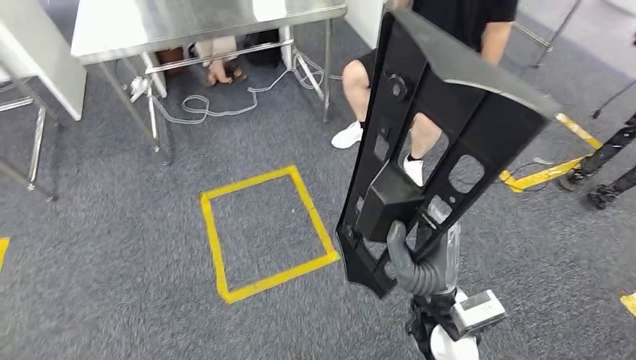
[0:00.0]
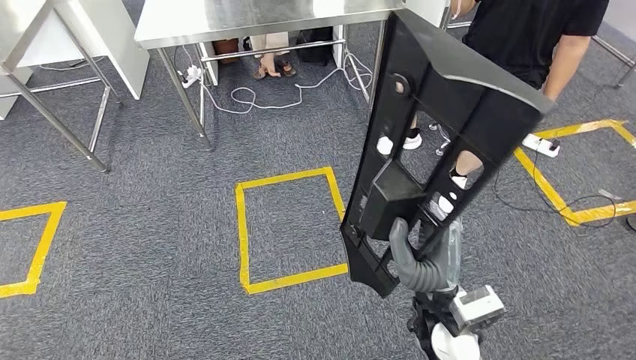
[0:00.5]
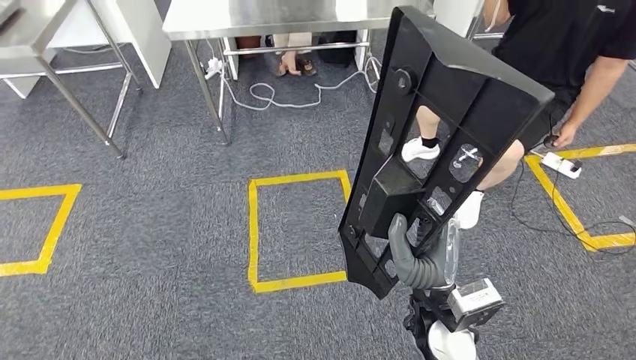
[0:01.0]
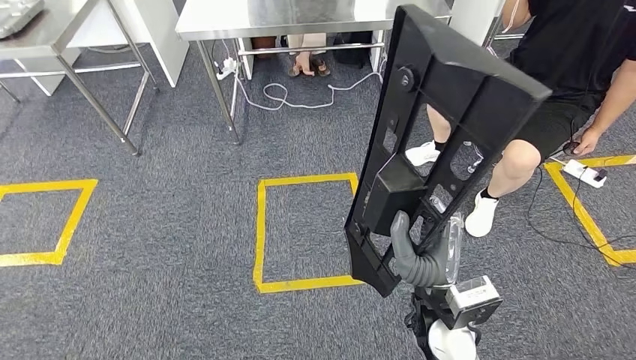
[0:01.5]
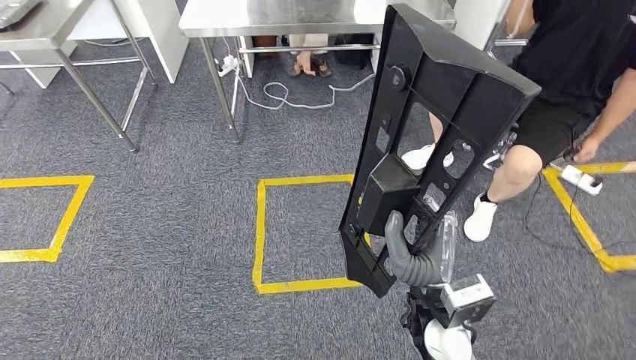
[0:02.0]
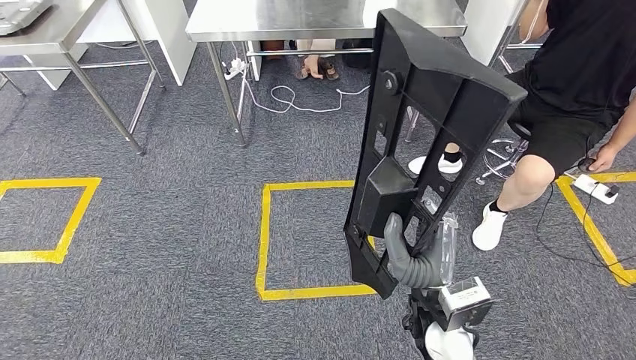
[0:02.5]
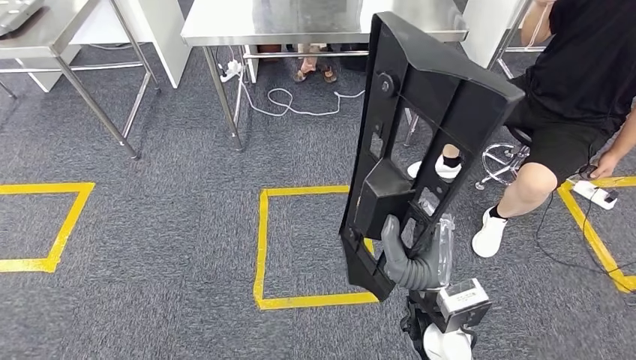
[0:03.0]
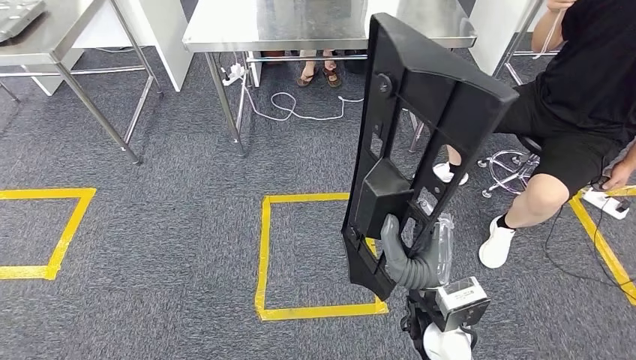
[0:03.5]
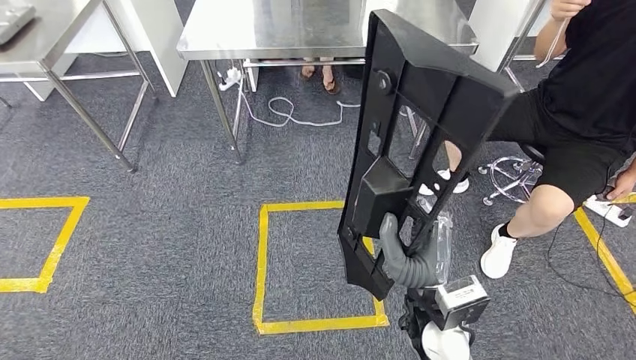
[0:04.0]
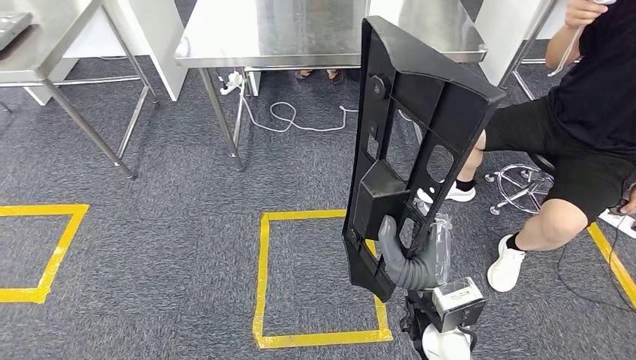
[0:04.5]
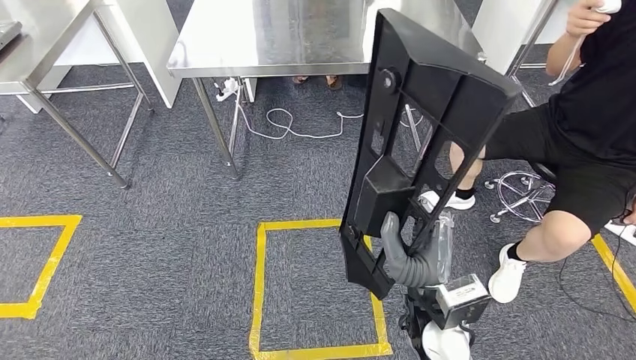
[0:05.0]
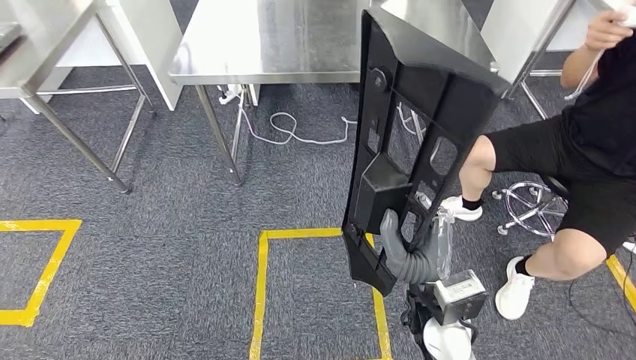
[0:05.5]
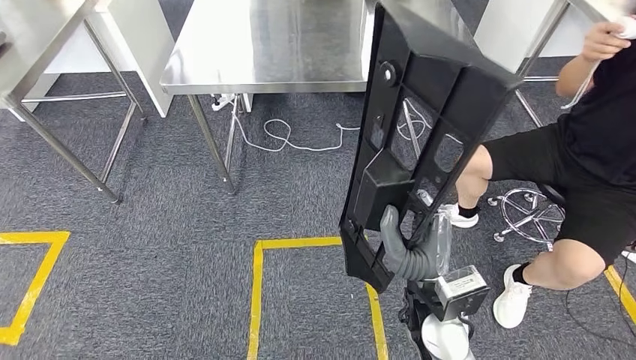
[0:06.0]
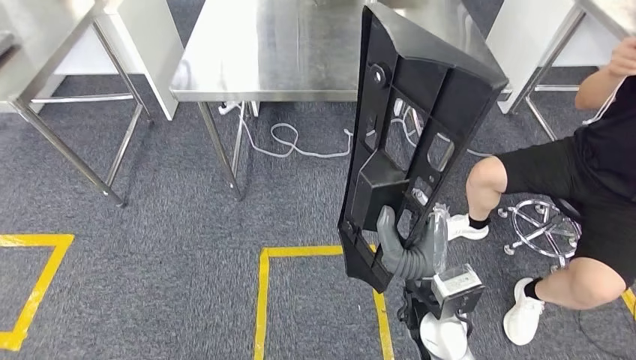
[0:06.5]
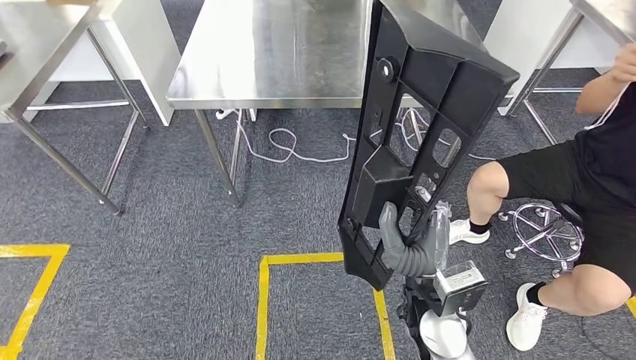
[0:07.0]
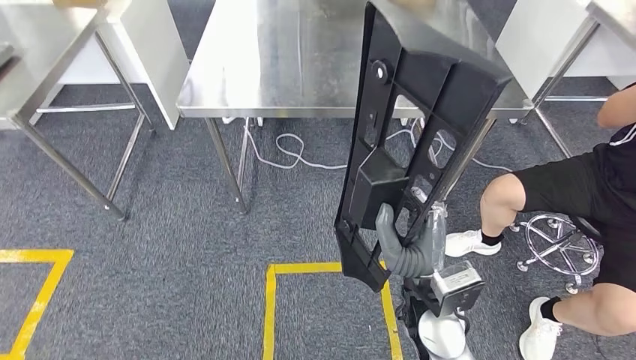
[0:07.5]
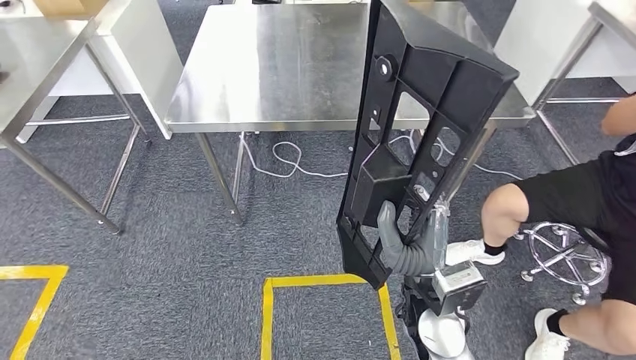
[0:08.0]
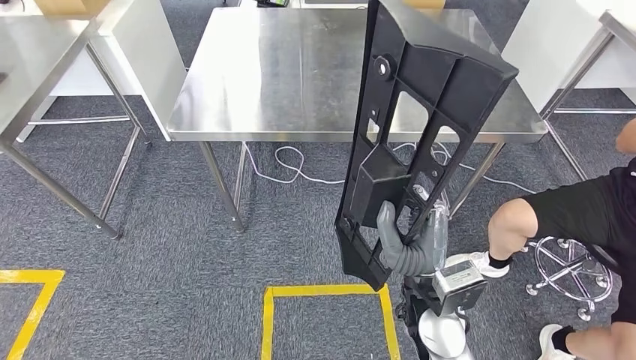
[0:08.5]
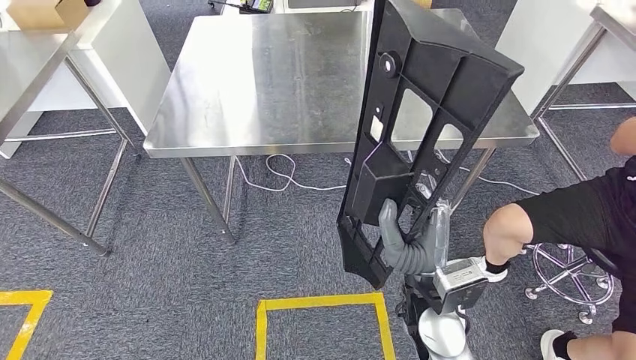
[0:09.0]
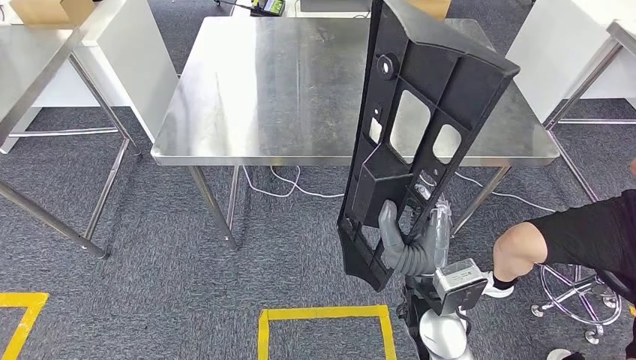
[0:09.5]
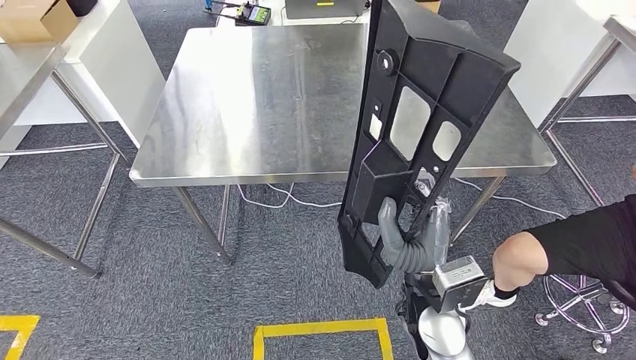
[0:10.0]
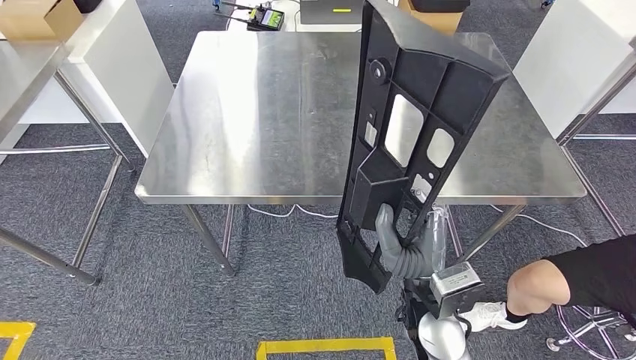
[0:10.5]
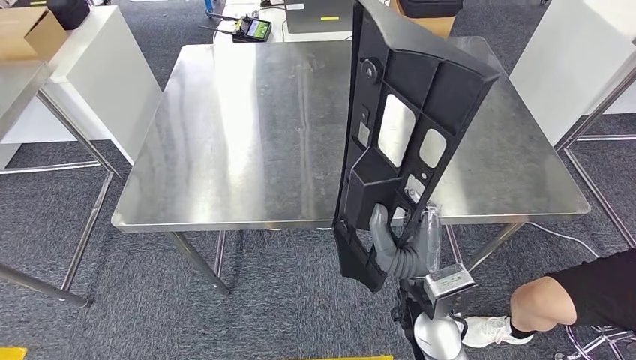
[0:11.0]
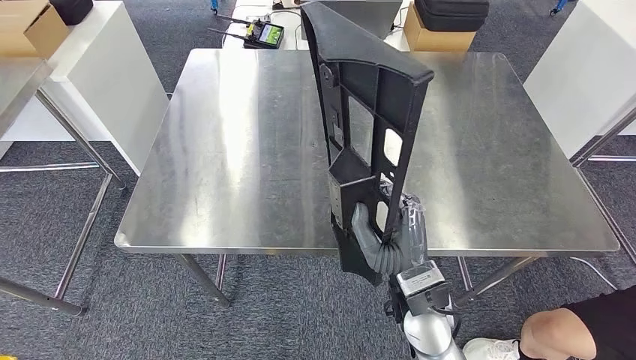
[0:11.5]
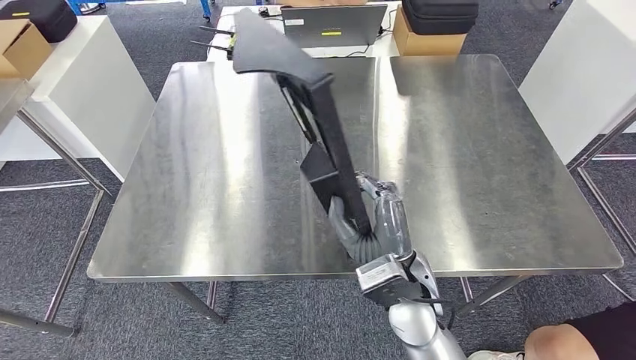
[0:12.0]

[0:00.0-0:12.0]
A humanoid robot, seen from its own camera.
Step, 0:00.0 to 0:08.5: Move the large material to the workbench.

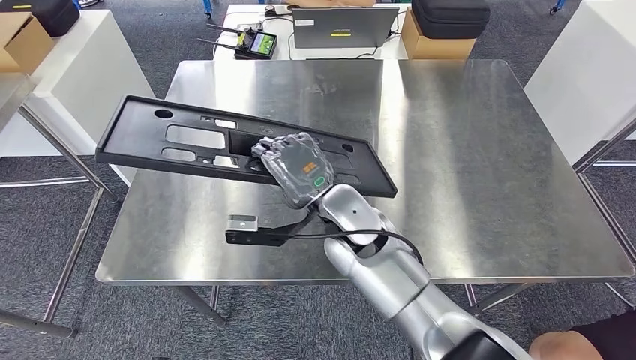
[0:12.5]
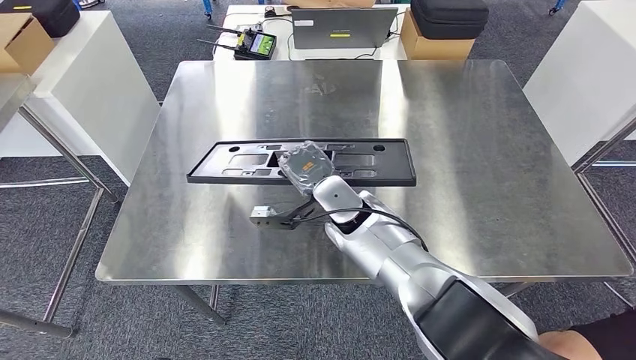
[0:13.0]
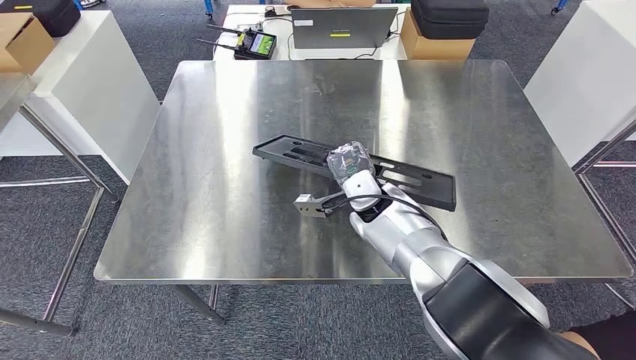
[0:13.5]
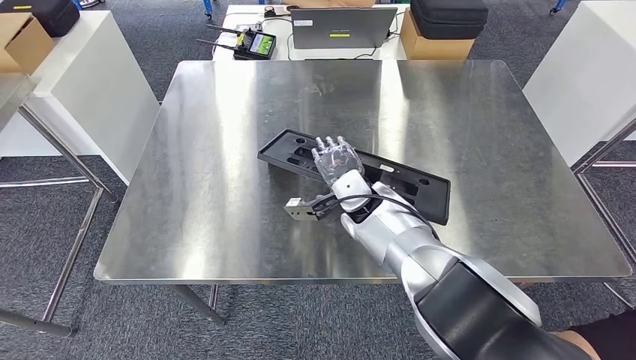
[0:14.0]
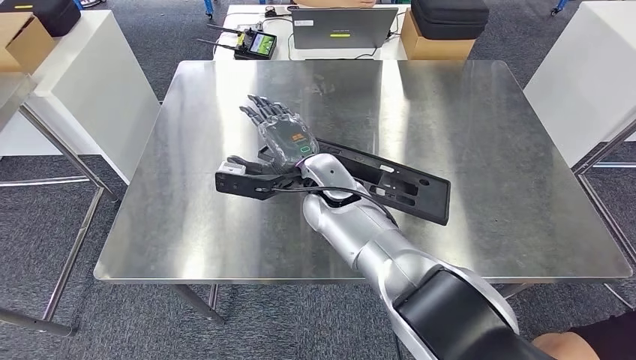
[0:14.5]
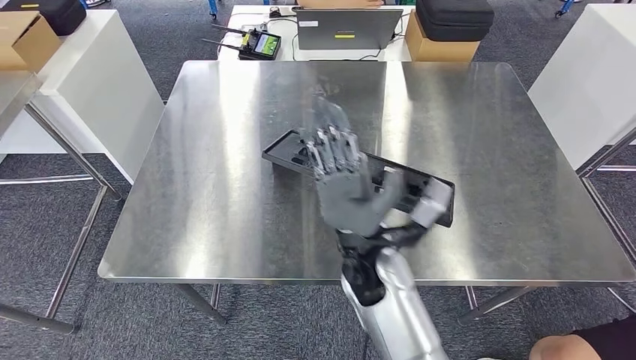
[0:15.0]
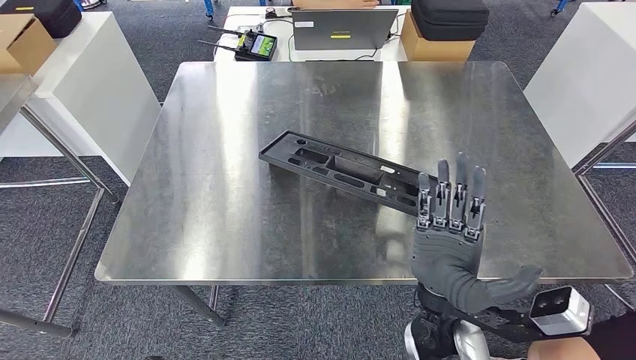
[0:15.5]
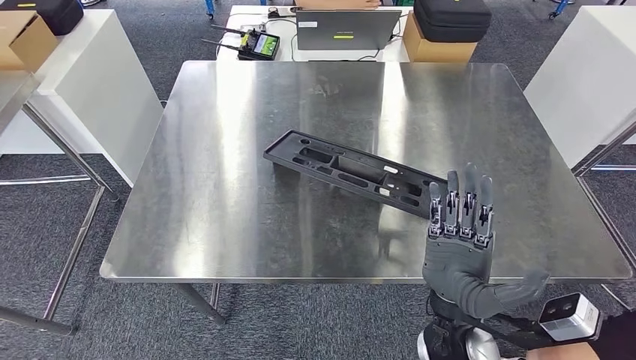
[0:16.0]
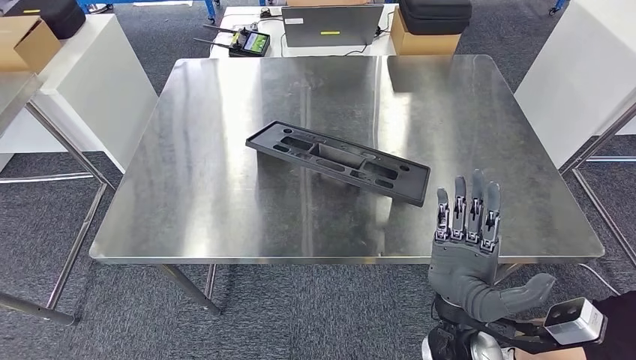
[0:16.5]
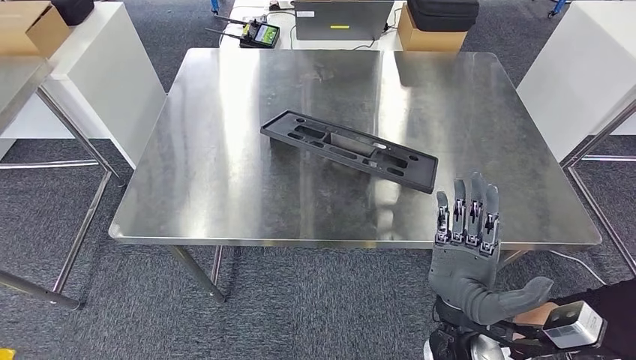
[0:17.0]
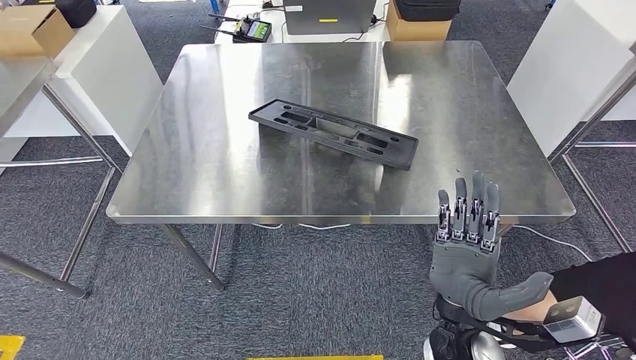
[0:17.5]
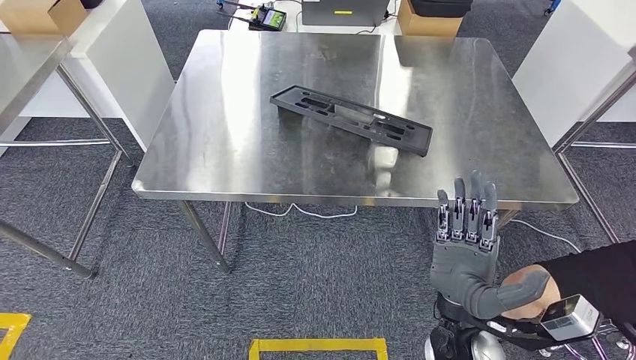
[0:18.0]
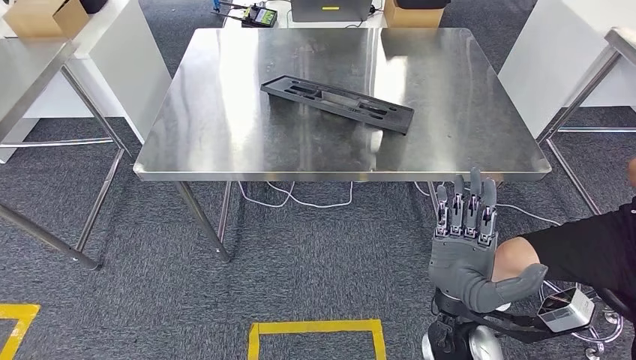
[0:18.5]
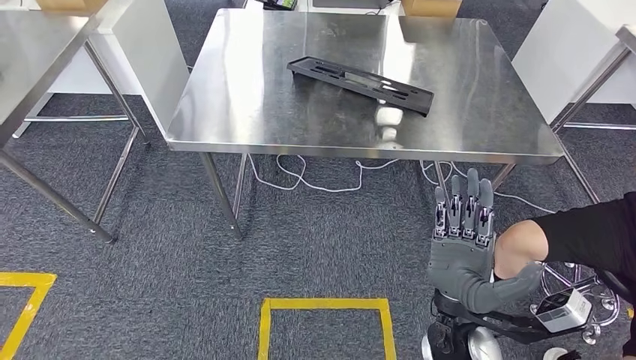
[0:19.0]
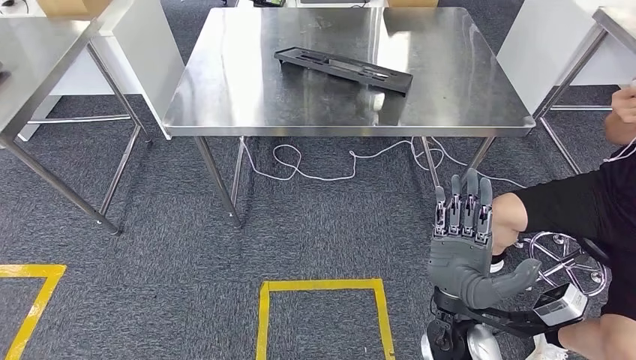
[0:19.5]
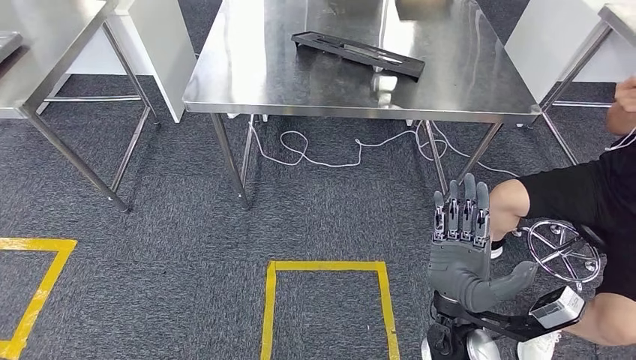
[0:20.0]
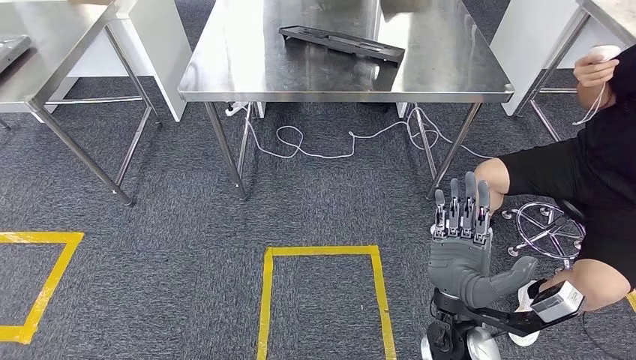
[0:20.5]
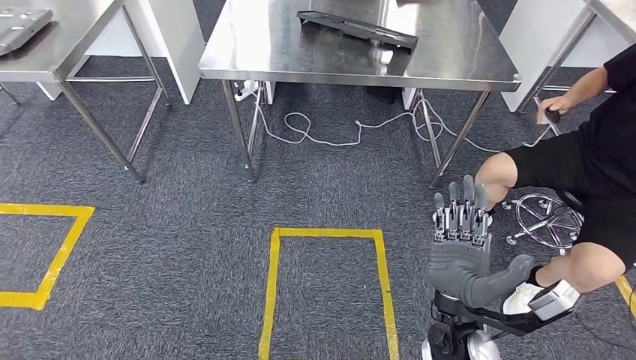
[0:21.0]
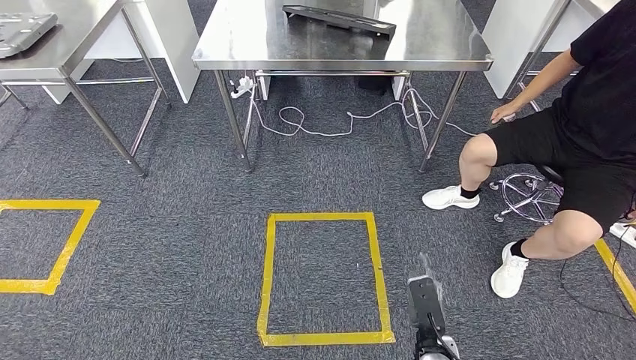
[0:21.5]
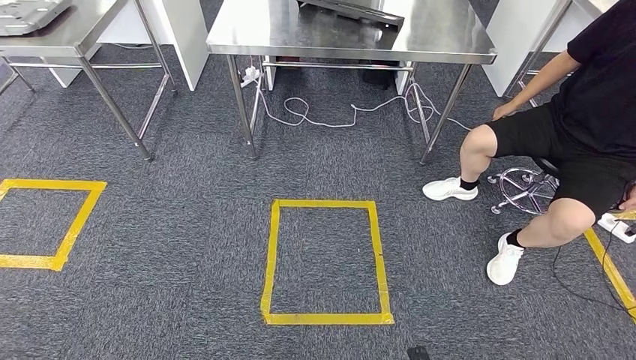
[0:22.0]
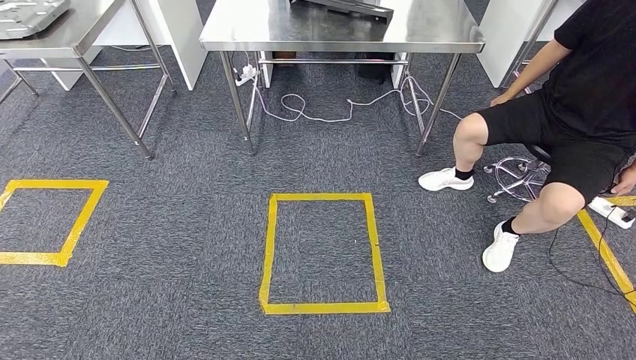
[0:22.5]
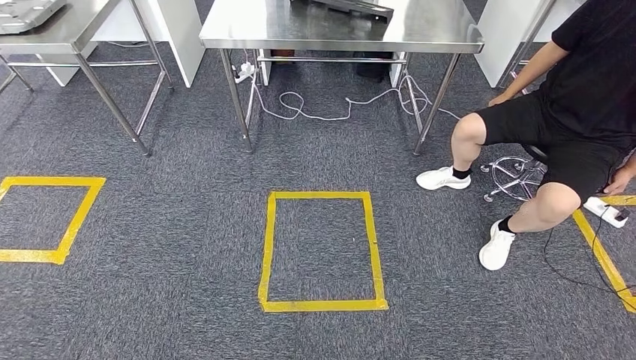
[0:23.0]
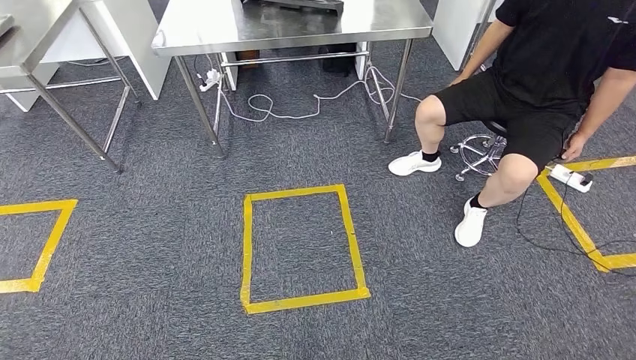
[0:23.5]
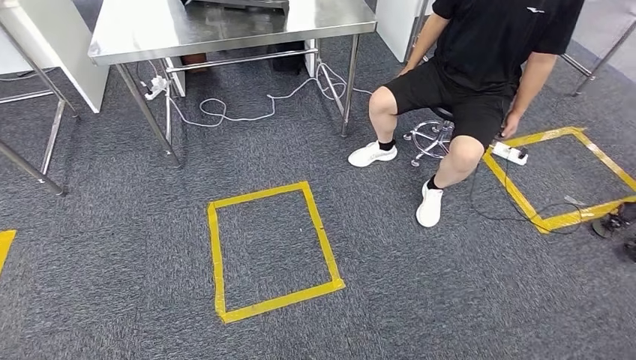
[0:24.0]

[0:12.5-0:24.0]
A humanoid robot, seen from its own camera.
Step, 0:12.5 to 0:20.5: Insert the large material into the corresponding slot on the workbench.
0:12.5 to 0:14.5: The right hand shifts approximately 5 cm forward.
